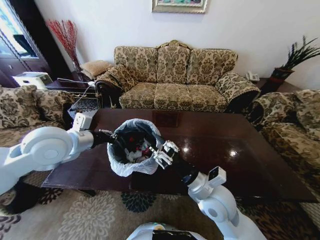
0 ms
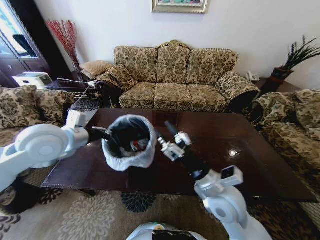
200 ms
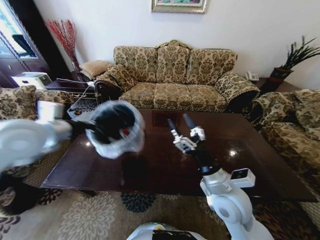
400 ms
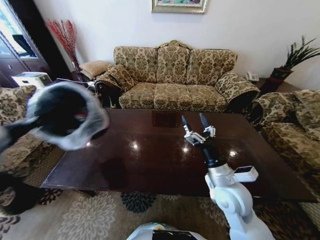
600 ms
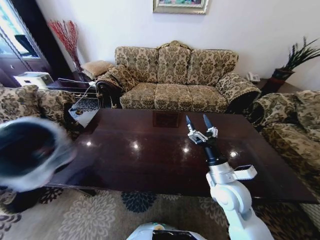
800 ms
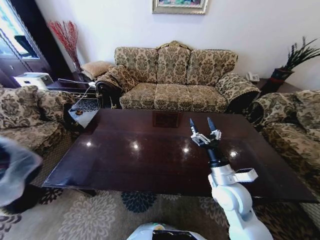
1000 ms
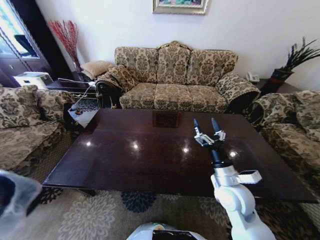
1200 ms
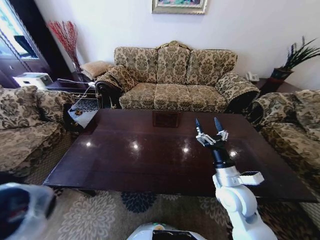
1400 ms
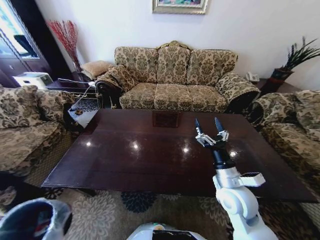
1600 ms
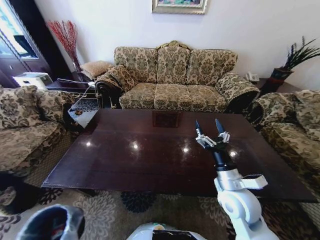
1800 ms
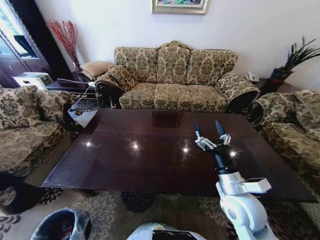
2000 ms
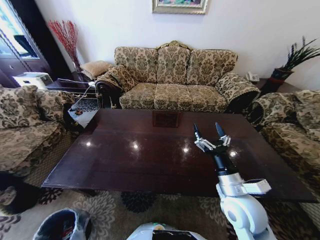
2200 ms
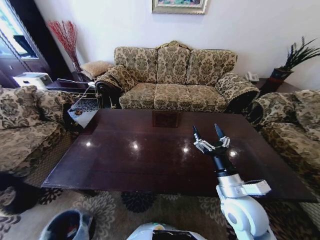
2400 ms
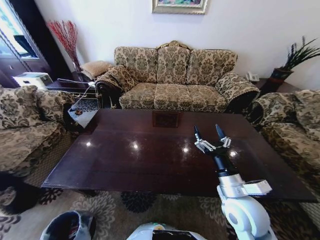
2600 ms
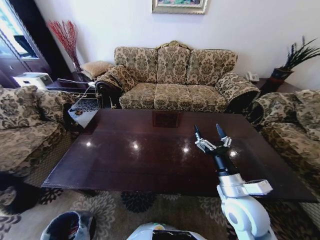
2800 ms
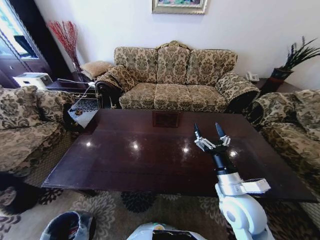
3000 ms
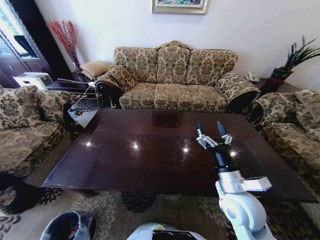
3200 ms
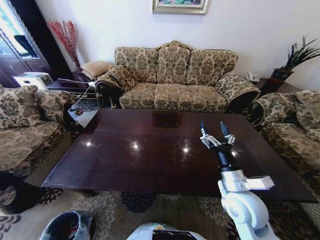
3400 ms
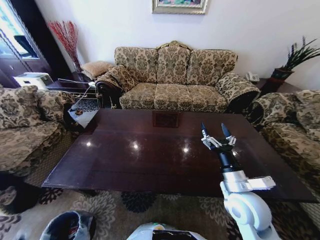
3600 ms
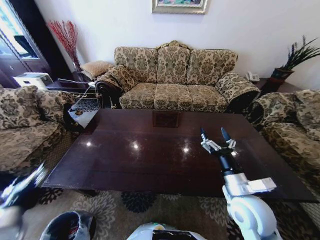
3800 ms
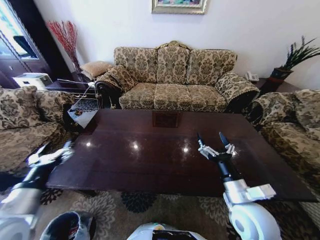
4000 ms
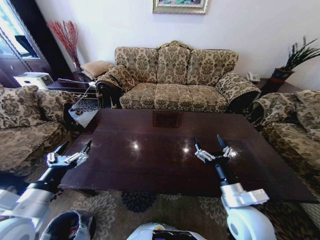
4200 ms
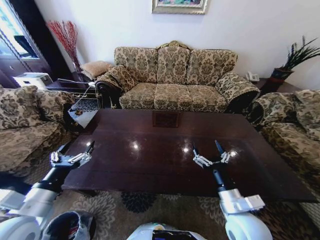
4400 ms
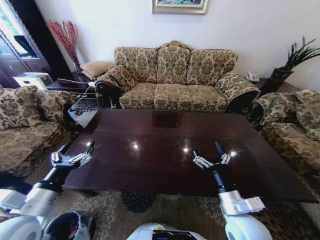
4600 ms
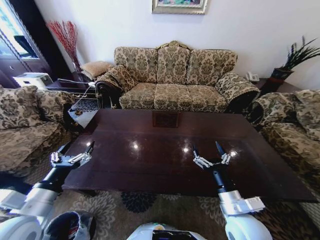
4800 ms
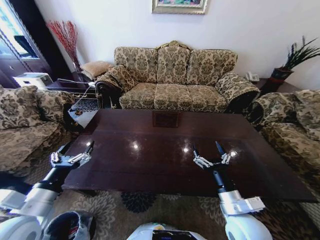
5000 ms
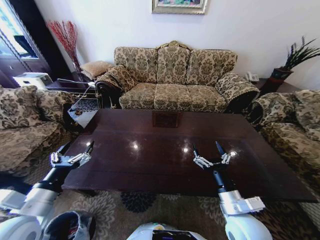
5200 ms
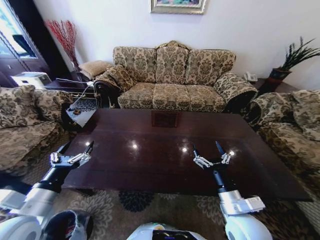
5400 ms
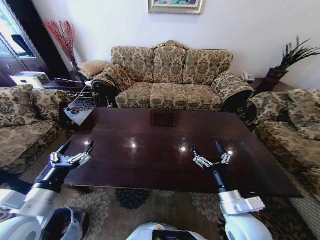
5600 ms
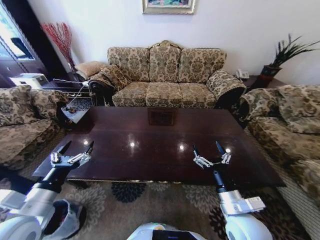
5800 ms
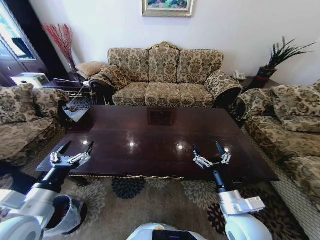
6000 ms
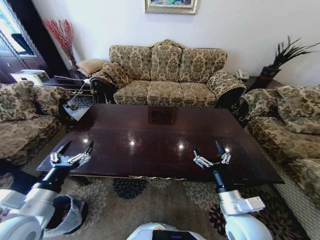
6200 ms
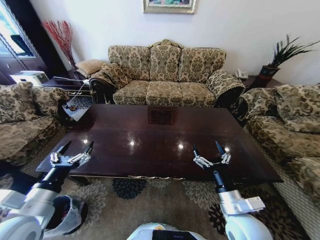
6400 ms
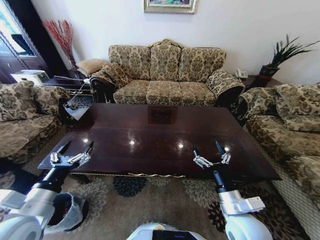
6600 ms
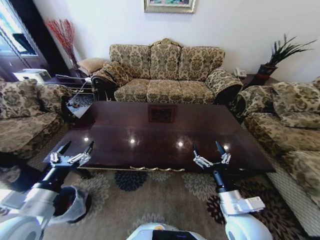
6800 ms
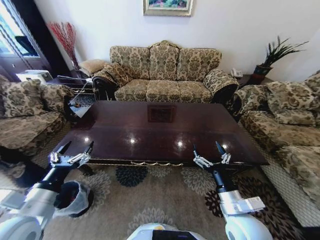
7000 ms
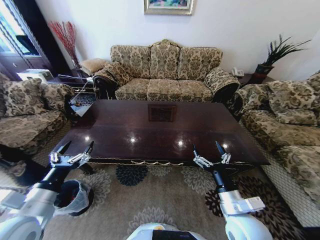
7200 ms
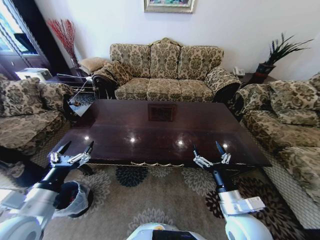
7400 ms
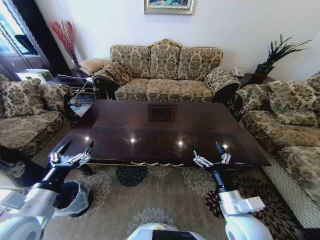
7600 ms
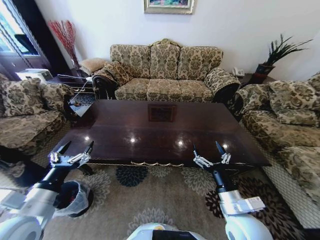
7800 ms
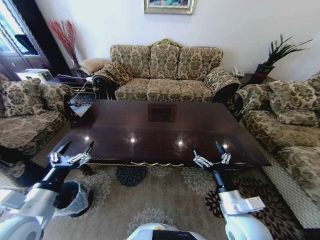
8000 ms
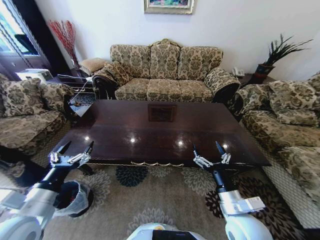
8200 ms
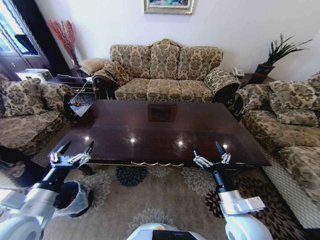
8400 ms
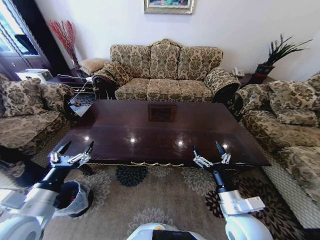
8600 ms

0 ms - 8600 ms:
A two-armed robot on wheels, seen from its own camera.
Task of the whole recording: Move to the front of the table and place the trash on the table into the trash bin.
0 ms - 1400 ms: The left gripper travels backward, downward and to the left by roughly 40 cm, while the right gripper moves to the right, approximately 5 cm, and opens up.
1400 ms - 2800 ms: The left gripper travels downward by some 25 cm, and opens its fingers.
2800 ms - 4400 ms: The left gripper moves upward and to the right, about 40 cm, and opens its fingers.
7200 ms - 8600 ms: Both grippers stay put.
